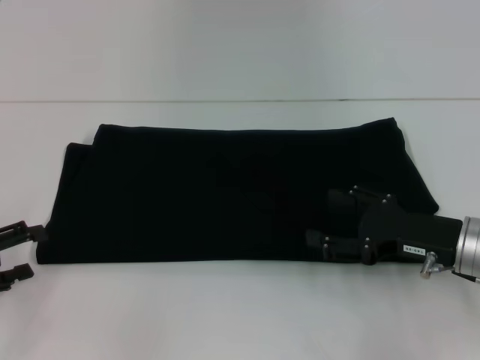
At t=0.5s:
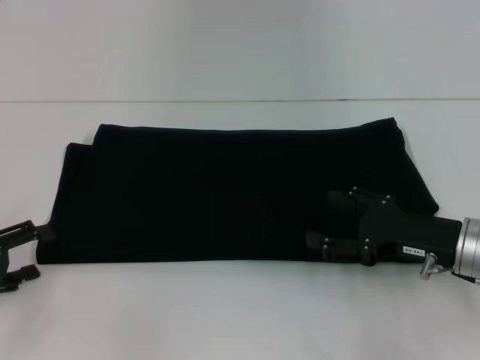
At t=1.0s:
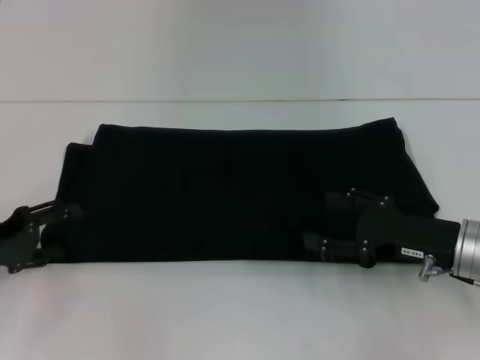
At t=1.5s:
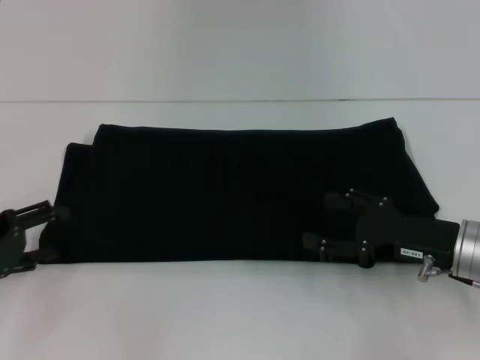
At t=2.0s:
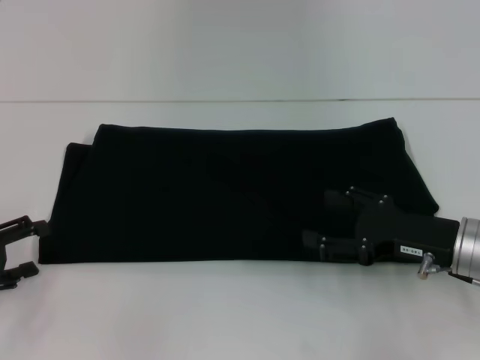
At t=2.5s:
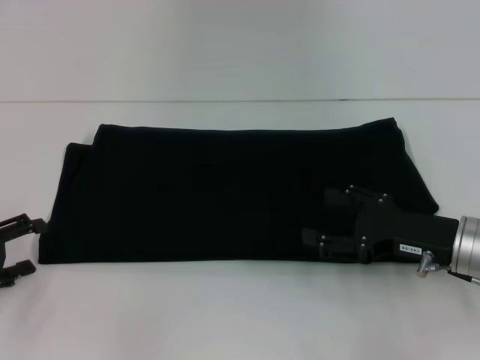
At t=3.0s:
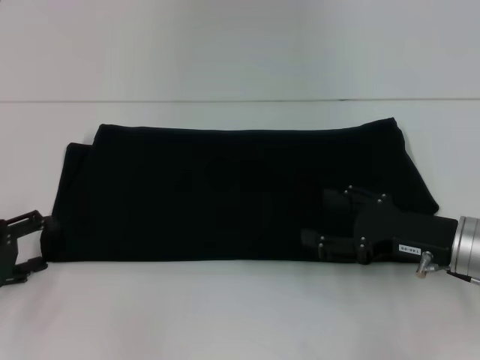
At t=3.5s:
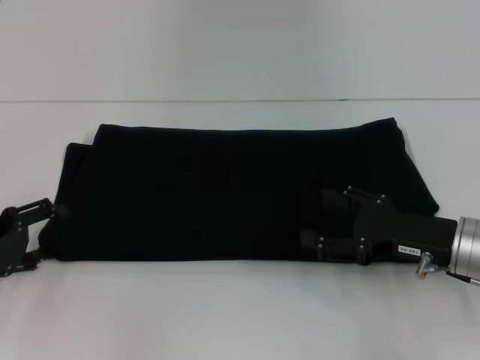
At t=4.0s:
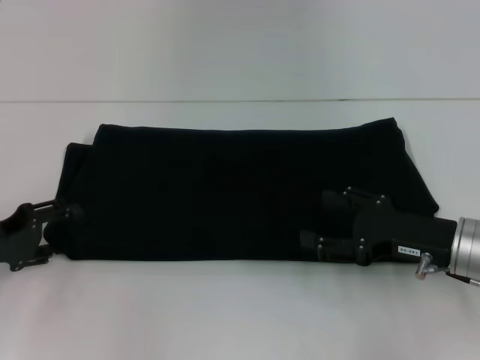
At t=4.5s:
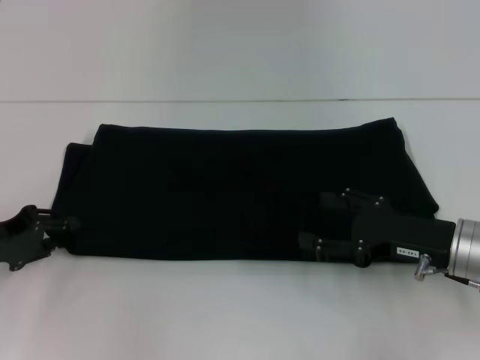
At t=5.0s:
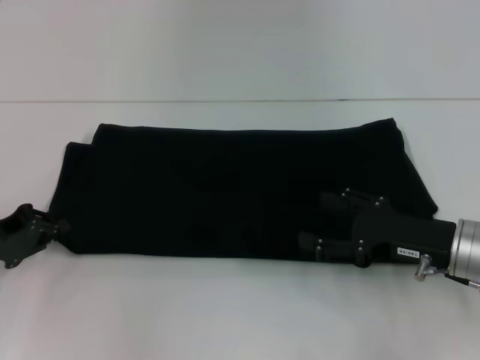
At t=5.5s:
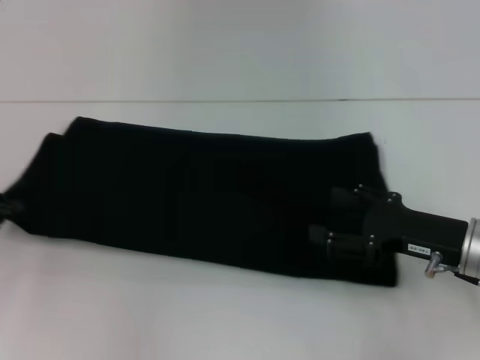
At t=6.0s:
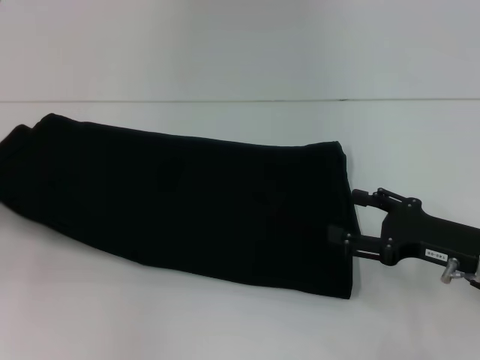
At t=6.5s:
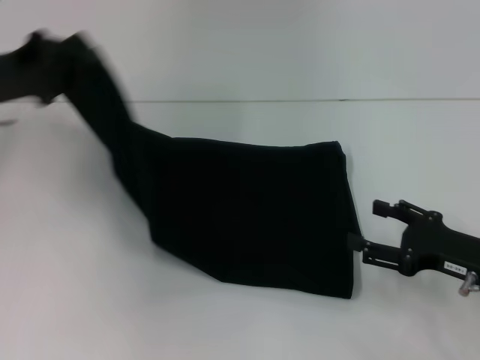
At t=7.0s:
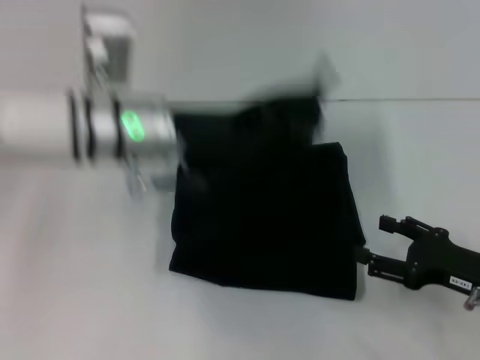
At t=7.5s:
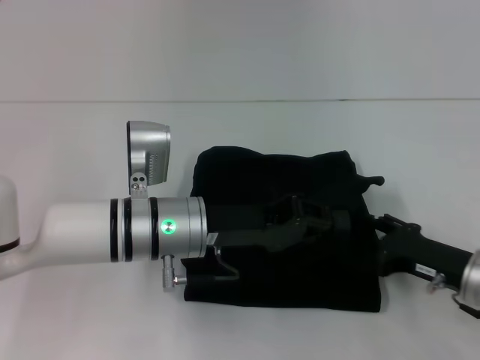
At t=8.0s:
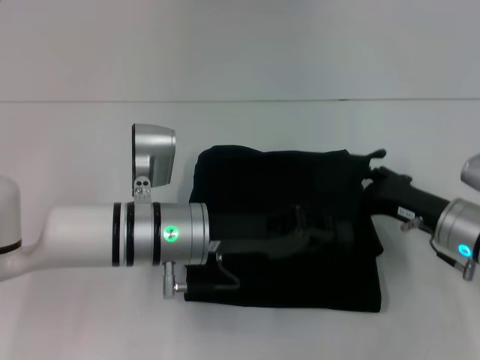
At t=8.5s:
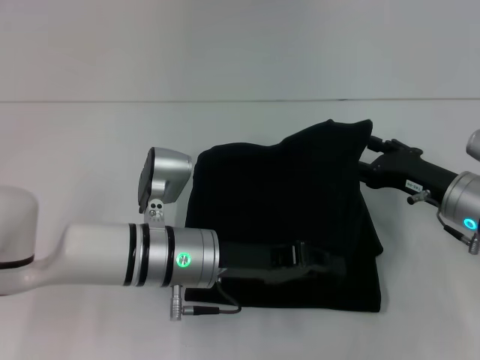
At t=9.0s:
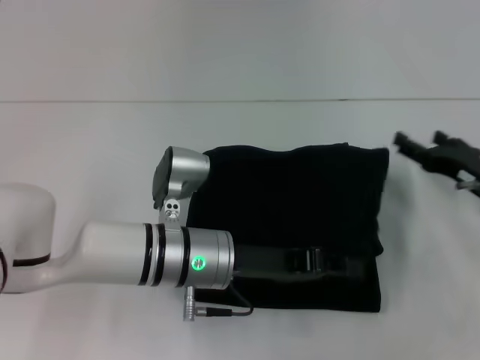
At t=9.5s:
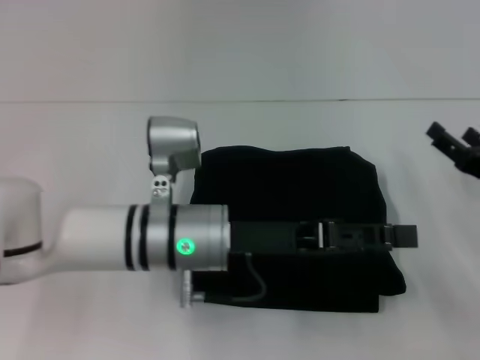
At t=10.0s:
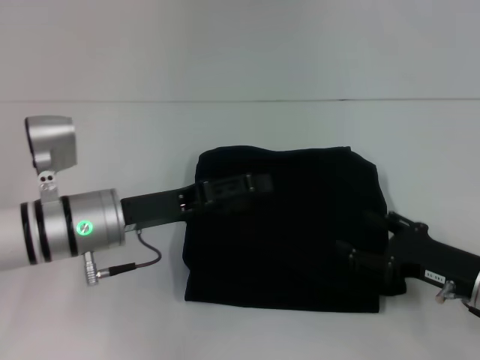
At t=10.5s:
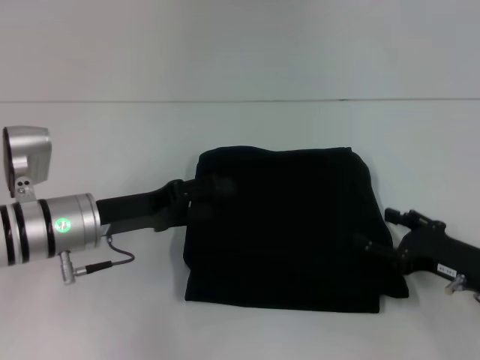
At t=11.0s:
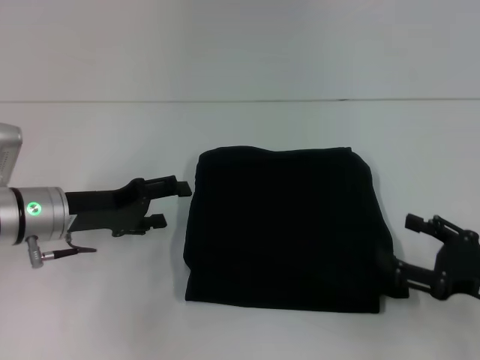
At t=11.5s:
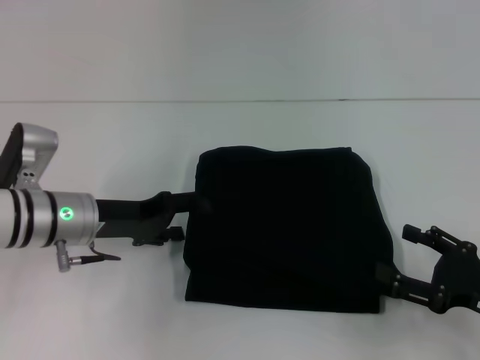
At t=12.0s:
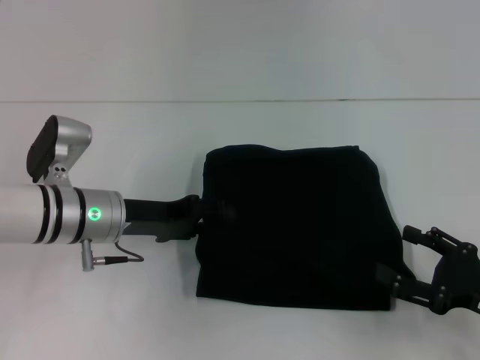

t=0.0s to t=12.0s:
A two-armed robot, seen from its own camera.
Step, t=0.0s to t=9.0s: Fold the clothes with your left hand.
t=0.0s to t=4.0s: The grippers stay close to where they were, moving slightly.
t=4.0s to t=6.0s: The left gripper shifts some 5 cm to the left, and closes up.
t=6.0s to t=8.0s: The left gripper goes about 30 cm to the right.
t=8.0s to t=10.0s: The right gripper heads backward, covering some 5 cm; the left gripper goes approximately 10 cm to the left, and opens.
t=10.0s to t=12.0s: The right gripper shifts by approximately 5 cm.

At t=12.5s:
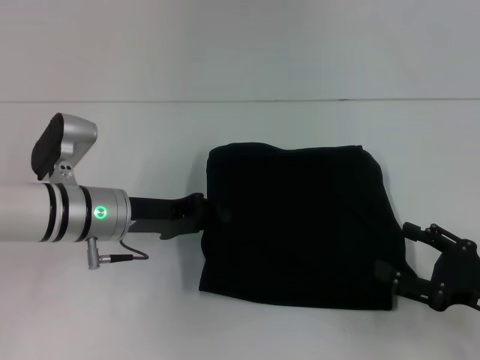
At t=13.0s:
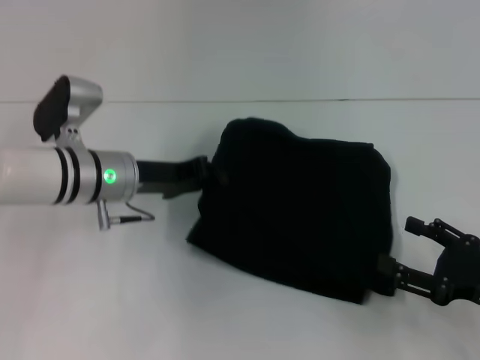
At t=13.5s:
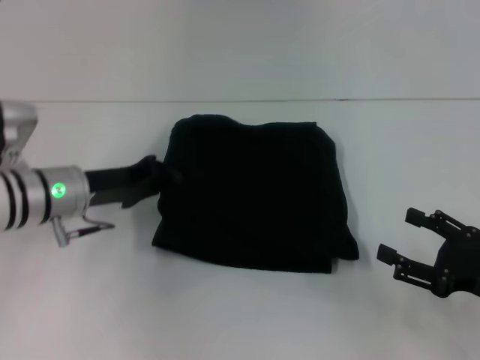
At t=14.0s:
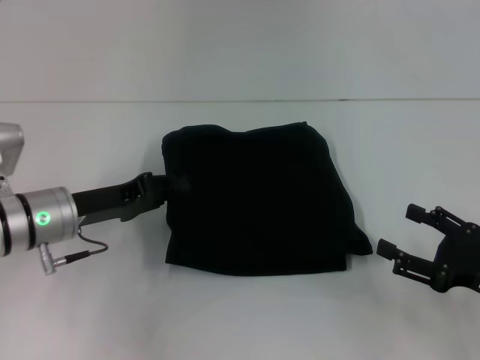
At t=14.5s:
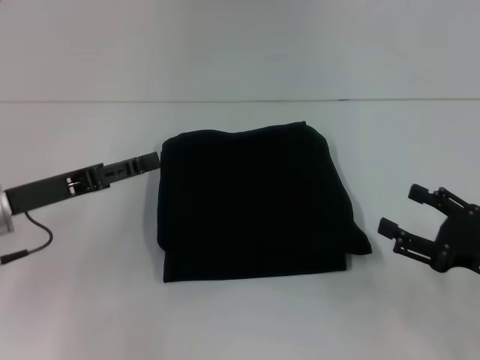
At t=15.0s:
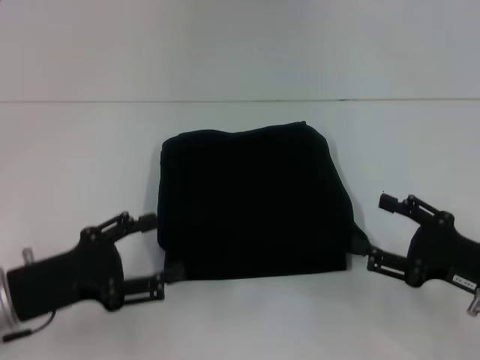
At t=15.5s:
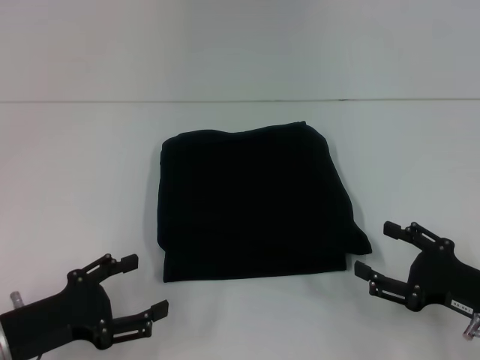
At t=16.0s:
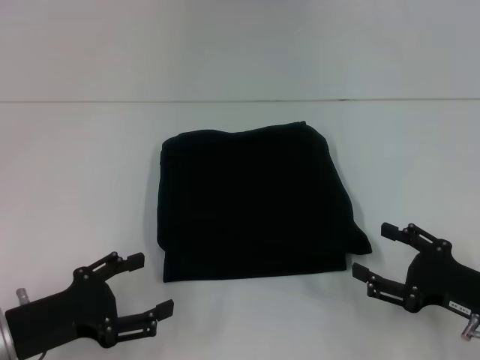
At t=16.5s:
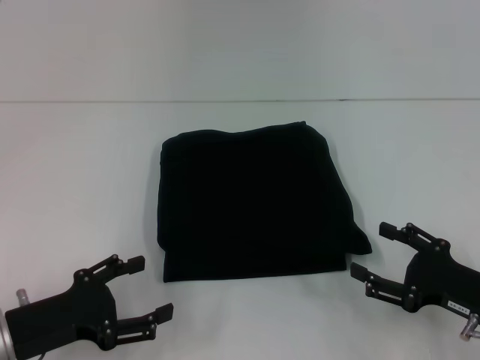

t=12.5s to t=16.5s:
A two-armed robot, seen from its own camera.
t=12.5s to t=14.5s: The left gripper shifts roughly 10 cm to the left, and closes and opens again.
t=14.5s to t=16.5s: The left gripper shifts roughly 10 cm backward and downward, and opens its fingers.

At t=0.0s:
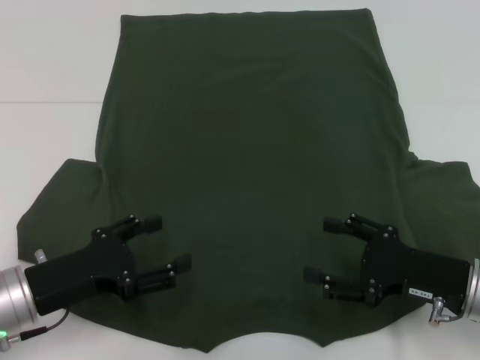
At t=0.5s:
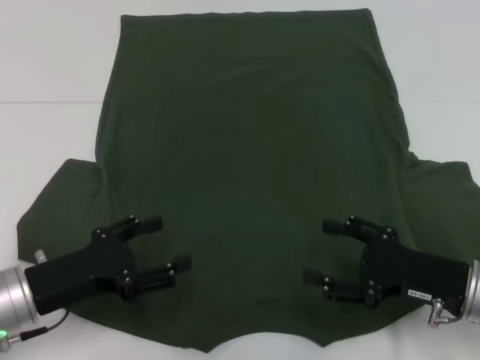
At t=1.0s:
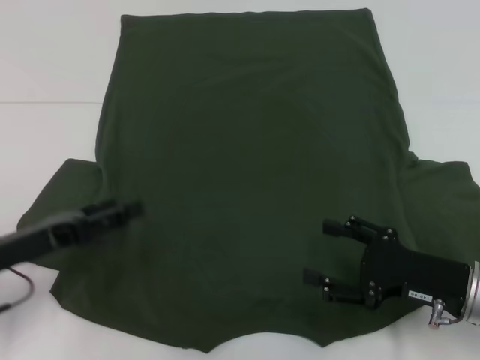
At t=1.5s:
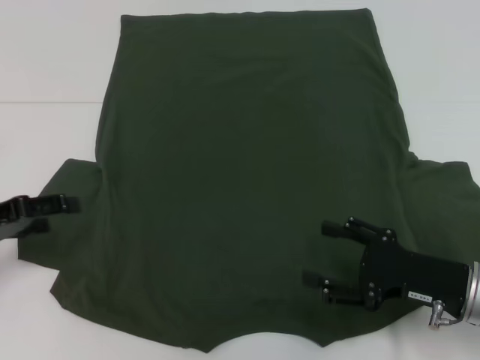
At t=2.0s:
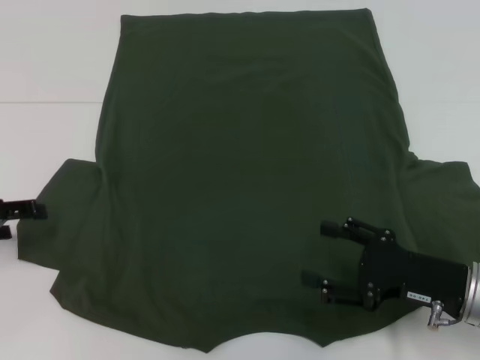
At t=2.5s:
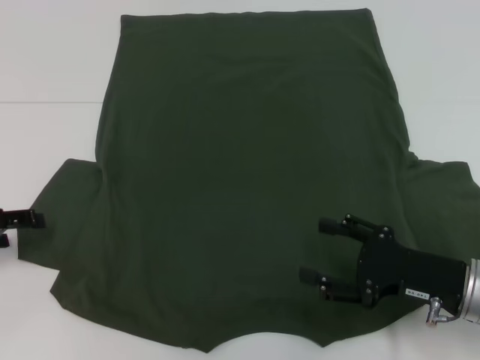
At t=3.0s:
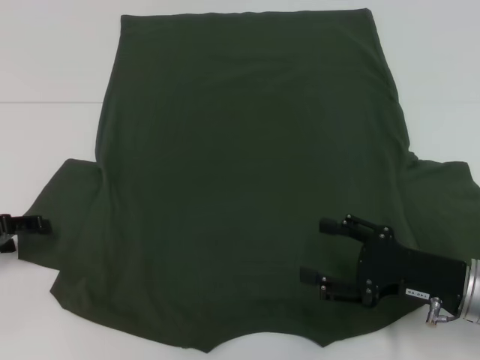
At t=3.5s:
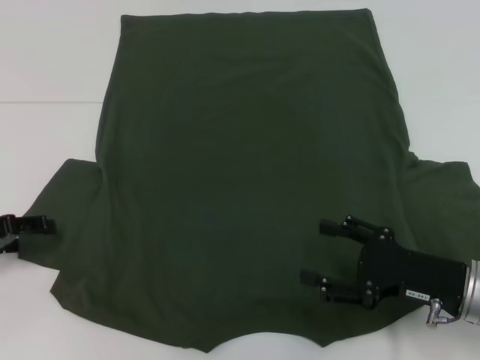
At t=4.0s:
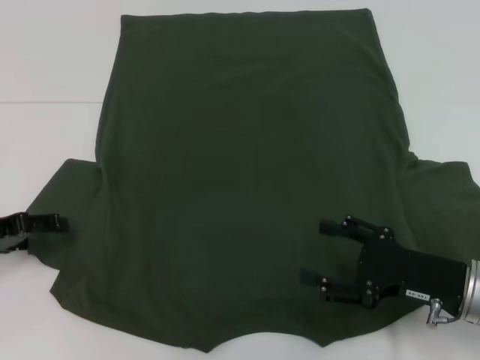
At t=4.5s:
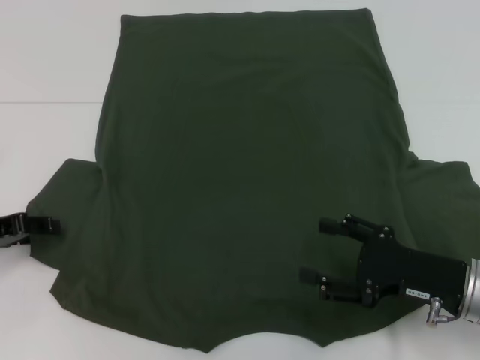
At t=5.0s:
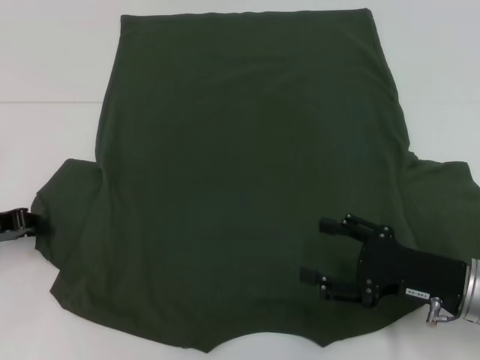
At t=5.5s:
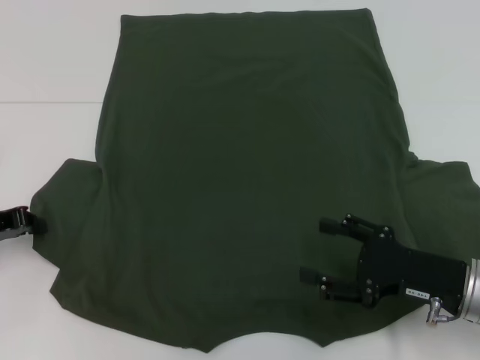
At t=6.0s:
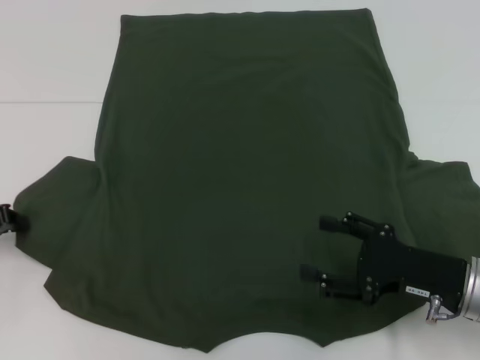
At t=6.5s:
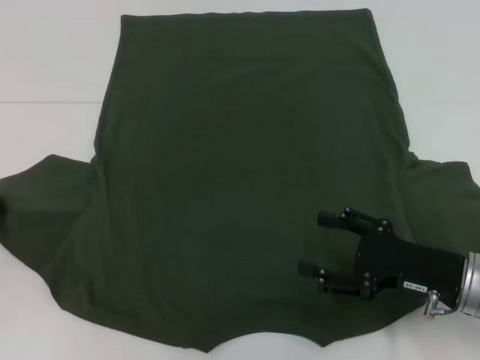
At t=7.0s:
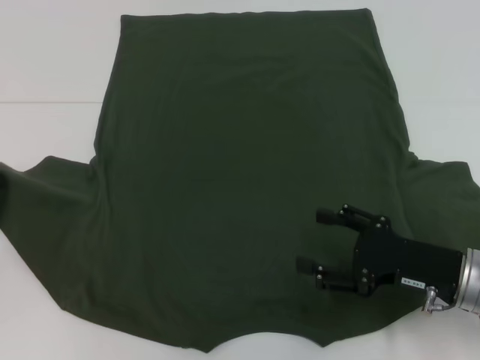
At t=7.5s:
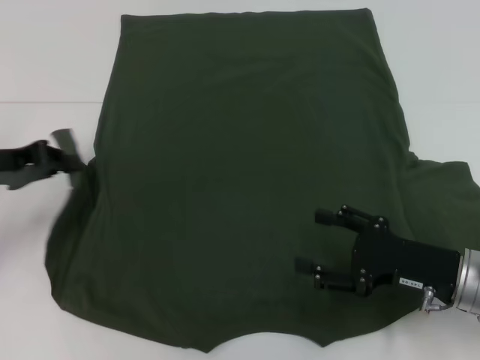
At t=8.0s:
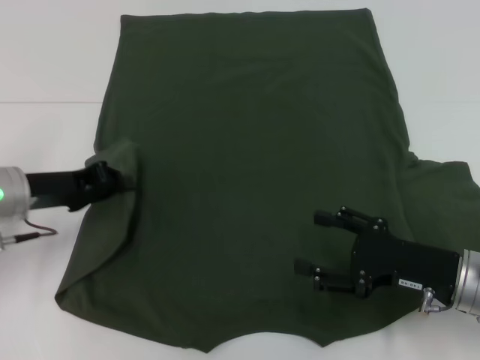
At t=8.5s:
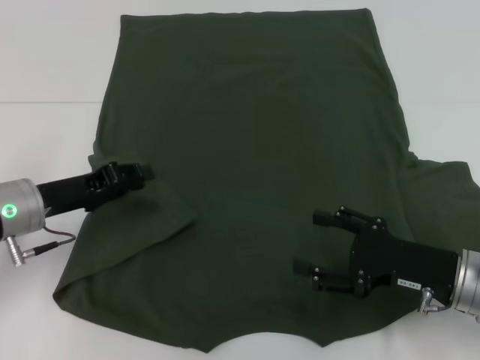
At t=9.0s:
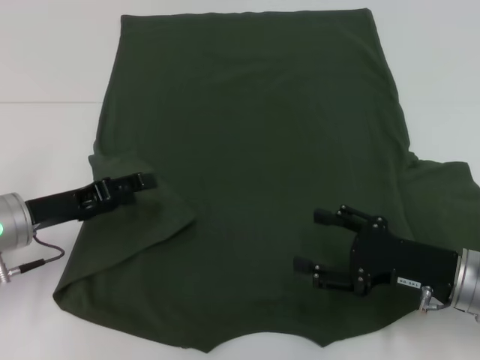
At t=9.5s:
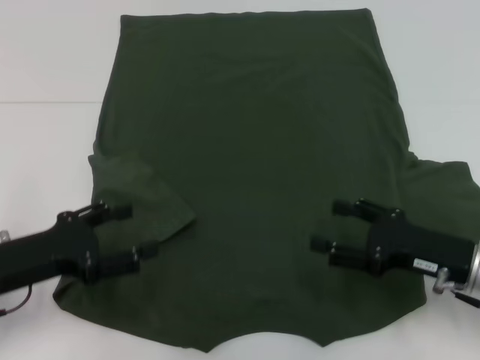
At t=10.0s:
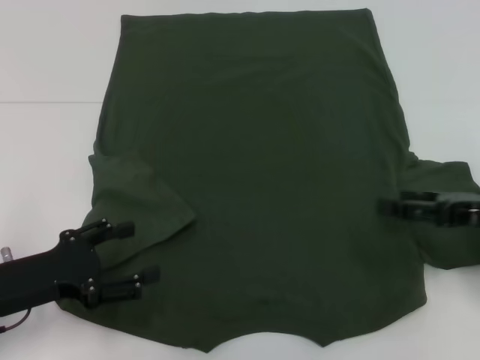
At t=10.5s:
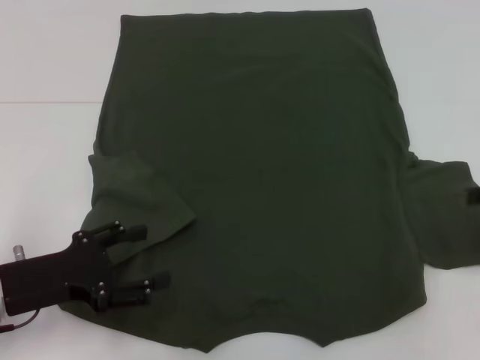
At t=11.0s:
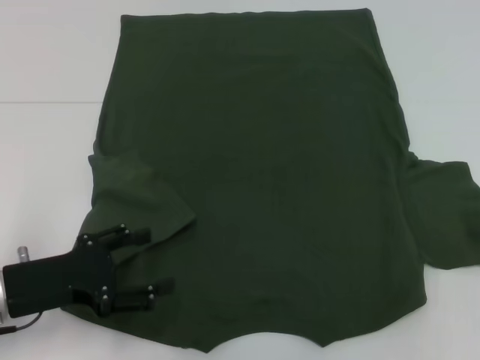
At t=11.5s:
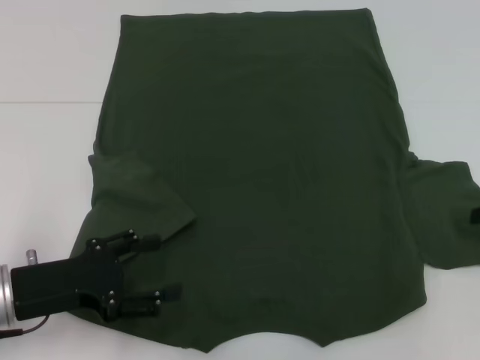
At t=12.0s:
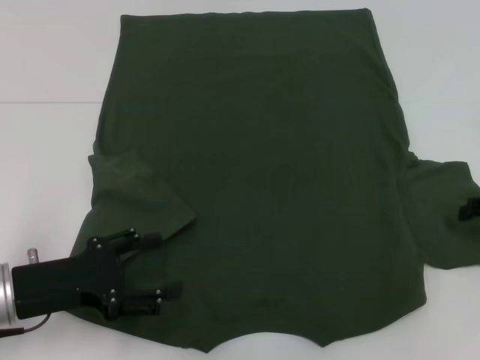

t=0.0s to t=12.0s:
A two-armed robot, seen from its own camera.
Step, t=0.0s to t=8.5s: Fold the bottom left sleeve with your left hand.
t=0.0s to t=2.0s: The left gripper is displaced to the left, forward and upward by roughly 15 cm.
t=2.0s to t=4.0s: The grippers stay close to where they were, moving slightly.
t=4.0s to t=6.0s: The left gripper closes.
t=6.0s to t=8.0s: The left gripper moves to the right, approximately 10 cm.
t=8.0s to t=10.0s: The right gripper heads to the right and upward, covering roughly 10 cm; the left gripper moves backward, approximately 10 cm, and opens up.
t=10.0s to t=12.0s: The right gripper is displaced to the right by some 5 cm.
